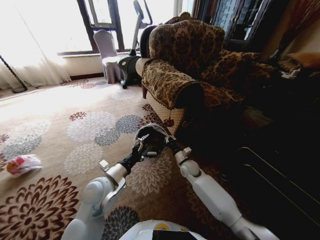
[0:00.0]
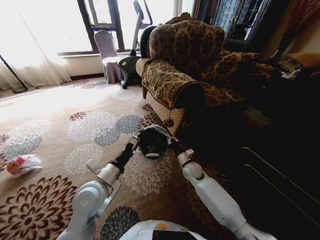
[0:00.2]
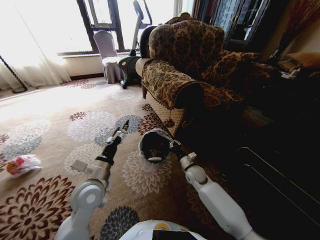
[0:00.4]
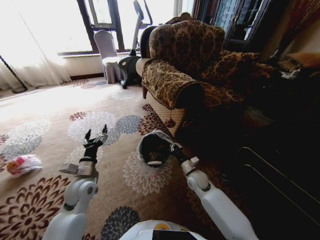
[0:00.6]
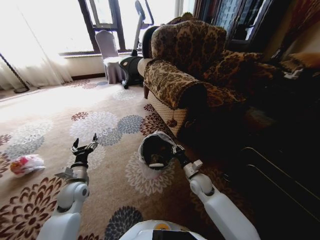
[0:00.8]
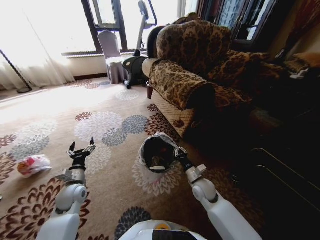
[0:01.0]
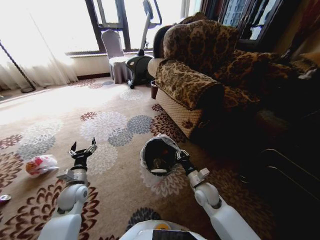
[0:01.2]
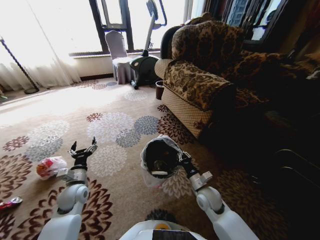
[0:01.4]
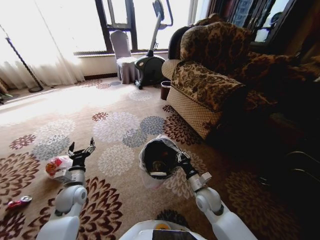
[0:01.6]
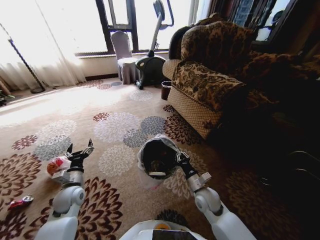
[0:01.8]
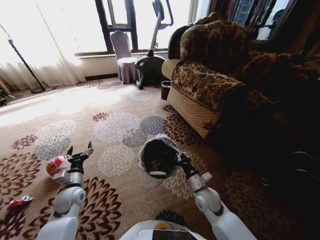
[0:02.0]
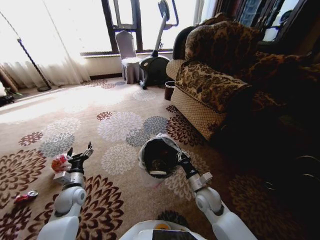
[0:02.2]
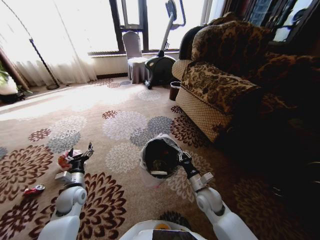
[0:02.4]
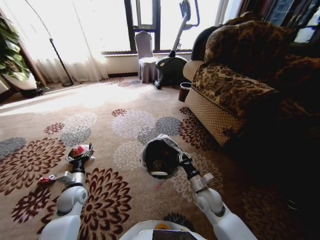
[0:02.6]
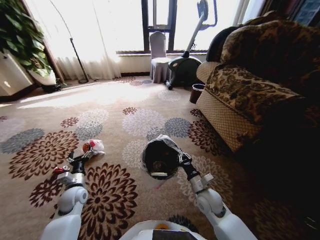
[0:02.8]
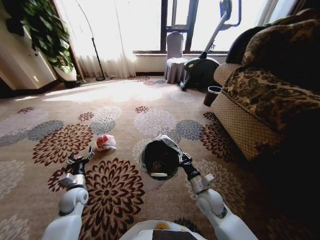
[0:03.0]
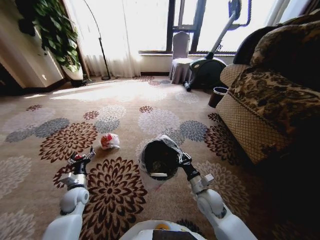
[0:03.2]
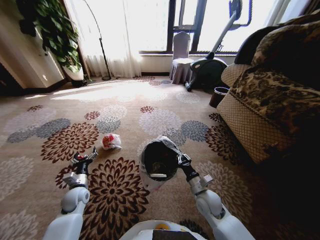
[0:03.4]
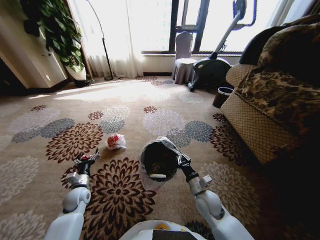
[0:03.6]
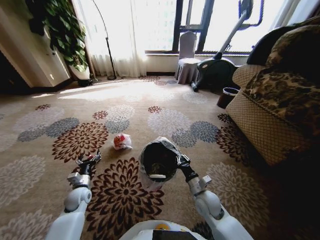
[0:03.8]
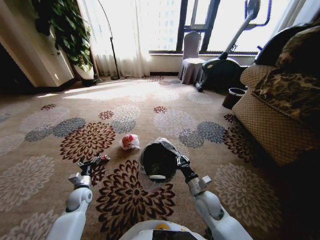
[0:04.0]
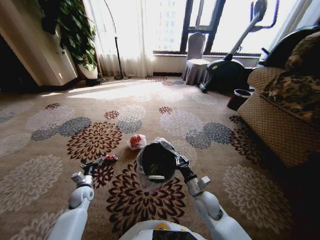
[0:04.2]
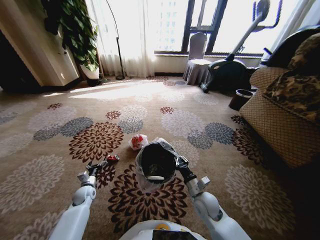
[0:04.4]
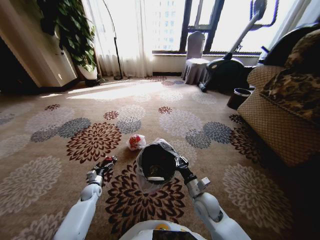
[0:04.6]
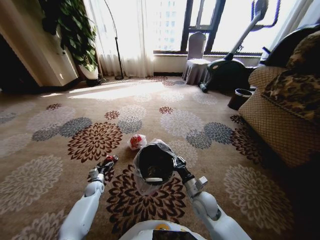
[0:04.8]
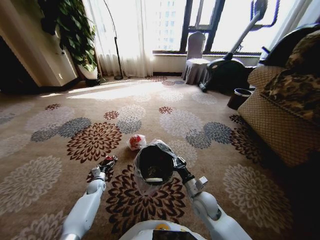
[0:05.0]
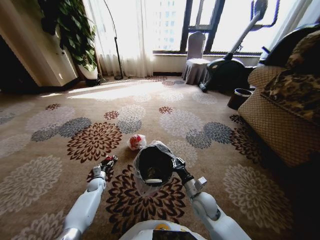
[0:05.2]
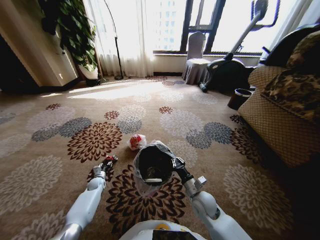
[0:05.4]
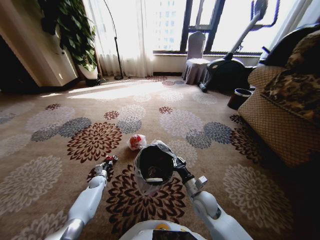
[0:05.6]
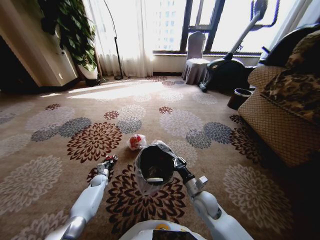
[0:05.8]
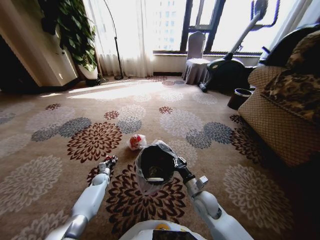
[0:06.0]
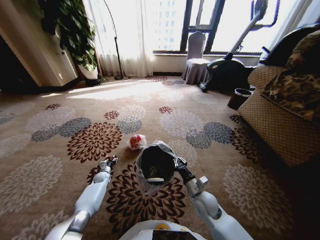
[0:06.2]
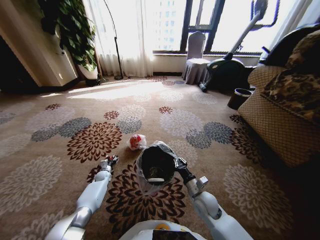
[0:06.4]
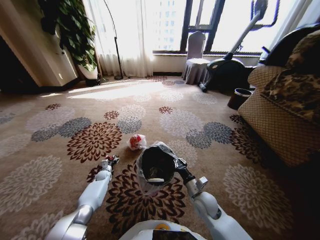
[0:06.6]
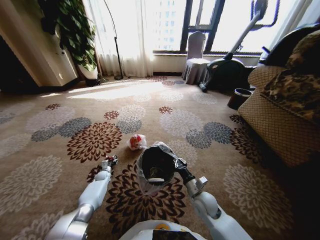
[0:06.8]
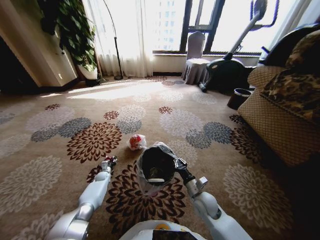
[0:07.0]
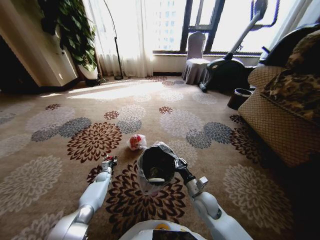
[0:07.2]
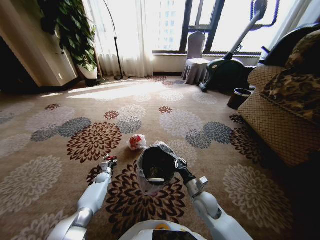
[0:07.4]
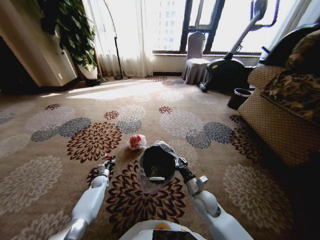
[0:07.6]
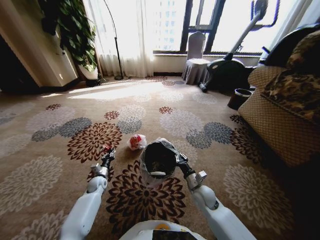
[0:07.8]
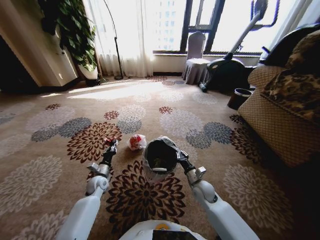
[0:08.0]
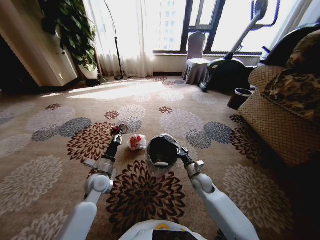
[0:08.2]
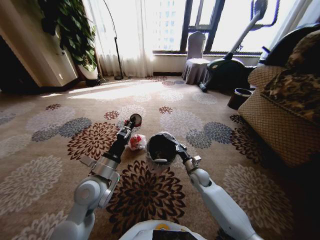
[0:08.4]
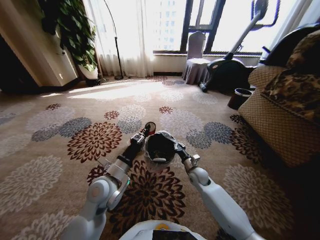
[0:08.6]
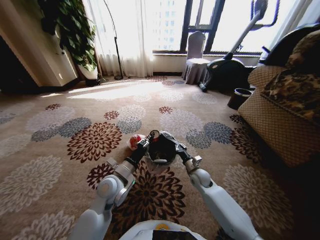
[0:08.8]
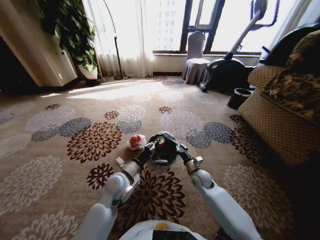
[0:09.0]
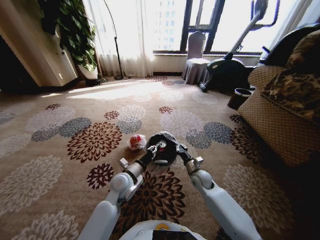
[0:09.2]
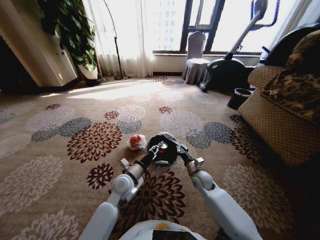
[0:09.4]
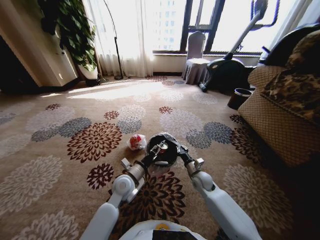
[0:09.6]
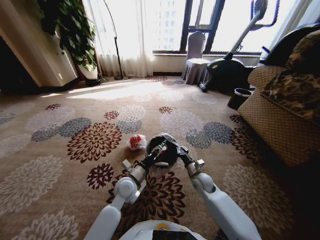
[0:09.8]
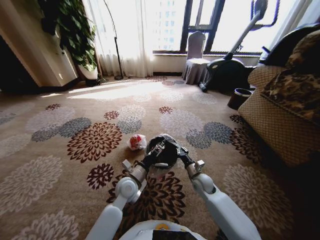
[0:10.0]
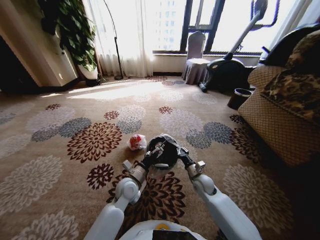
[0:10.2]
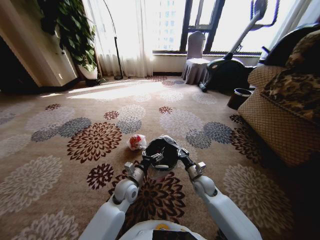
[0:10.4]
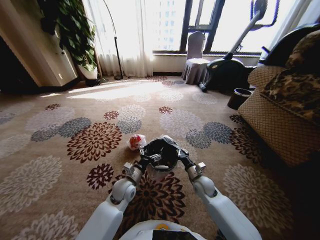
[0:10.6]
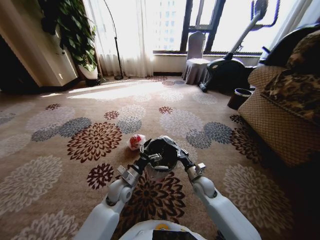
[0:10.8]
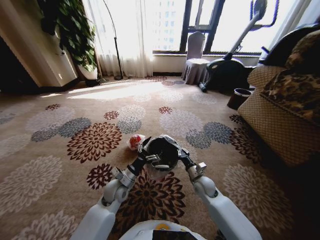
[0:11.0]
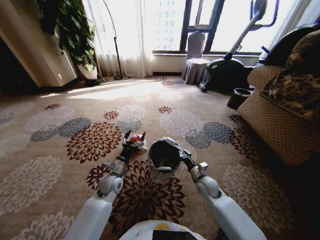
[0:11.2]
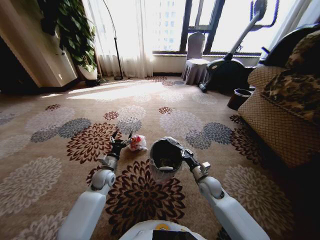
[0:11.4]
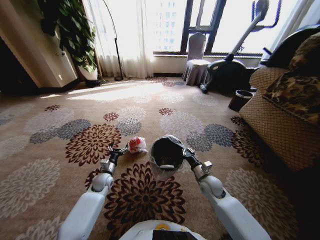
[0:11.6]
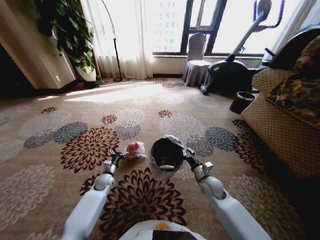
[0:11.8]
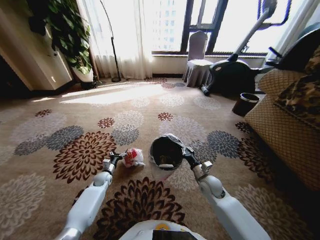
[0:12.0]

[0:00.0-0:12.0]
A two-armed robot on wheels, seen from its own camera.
Task of the whole recording: Pick up the trash from the ground and place it into the trash bin.
0:00.0 to 0:01.6: The right gripper is displaced backward by some 15 cm; the left gripper goes about 20 cm to the left and downward.
0:03.0 to 0:04.4: The left gripper goes roughly 10 cm downward.
0:04.4 to 0:06.0: The left gripper travels forward and downward by about 10 cm, and closes its fingers.
0:06.0 to 0:07.6: The left gripper opens and closes again.
0:07.6 to 0:09.0: The left gripper shifts roughly 35 cm upward and to the right. The right gripper travels forward by approximately 10 cm.
0:09.0 to 0:10.4: The left gripper heads downward, covering some 10 cm, and opens up.
0:10.4 to 0:12.0: The left gripper heads to the left, downward and forward, covering about 25 cm.

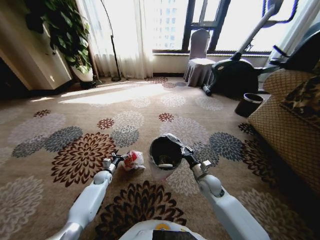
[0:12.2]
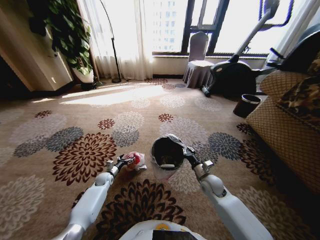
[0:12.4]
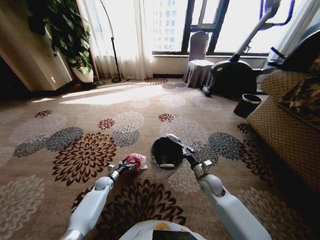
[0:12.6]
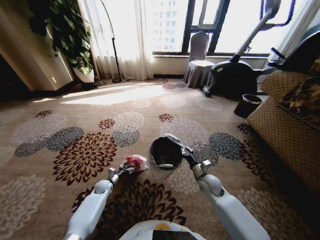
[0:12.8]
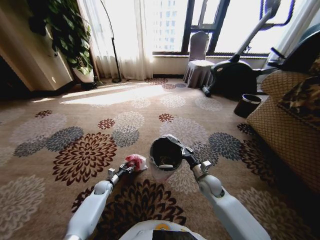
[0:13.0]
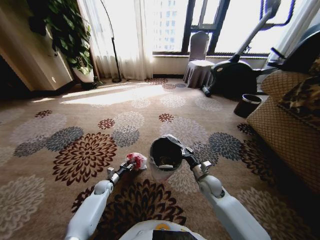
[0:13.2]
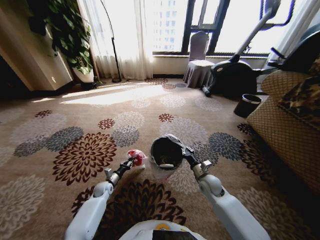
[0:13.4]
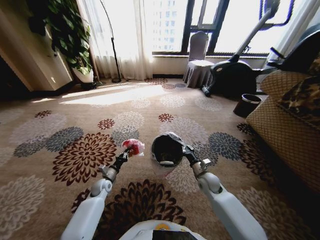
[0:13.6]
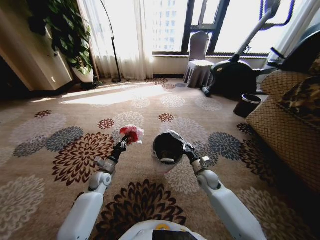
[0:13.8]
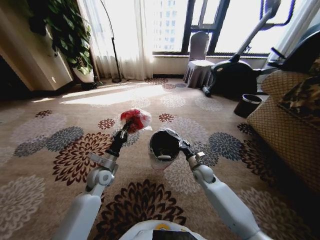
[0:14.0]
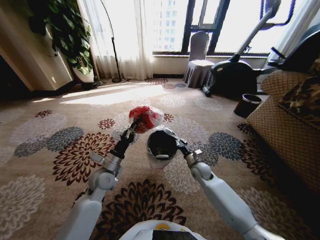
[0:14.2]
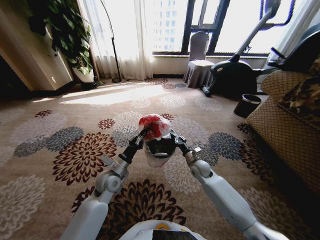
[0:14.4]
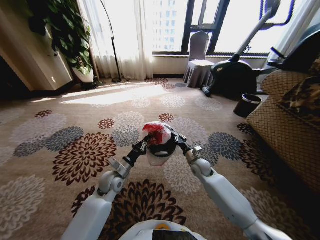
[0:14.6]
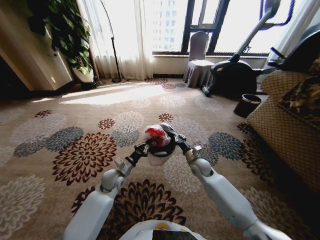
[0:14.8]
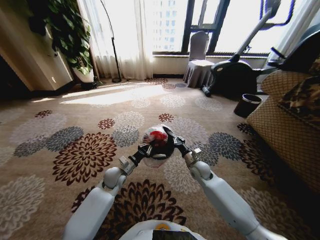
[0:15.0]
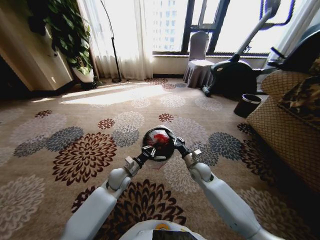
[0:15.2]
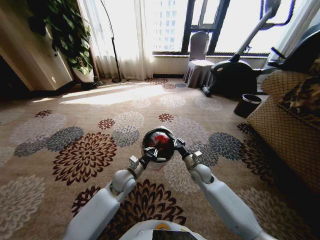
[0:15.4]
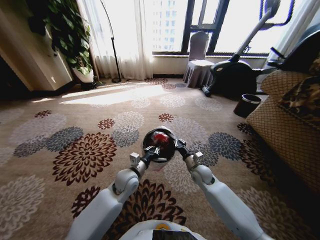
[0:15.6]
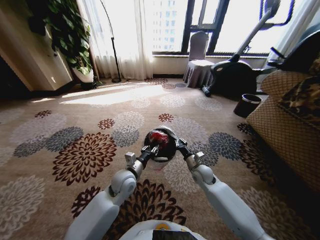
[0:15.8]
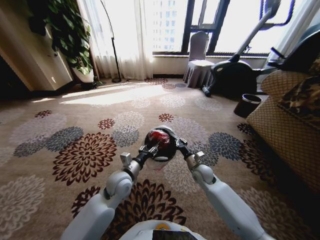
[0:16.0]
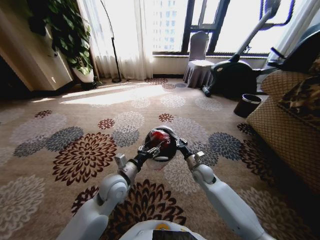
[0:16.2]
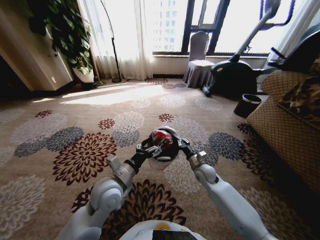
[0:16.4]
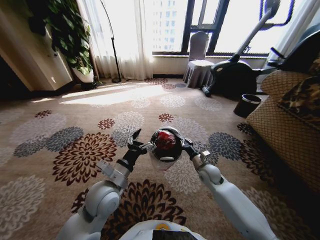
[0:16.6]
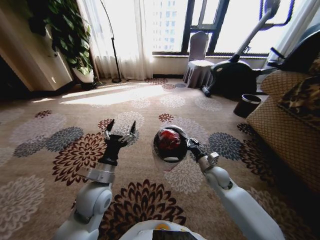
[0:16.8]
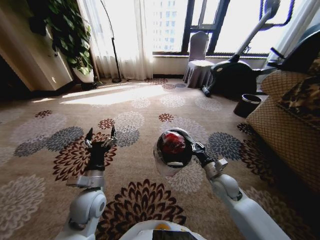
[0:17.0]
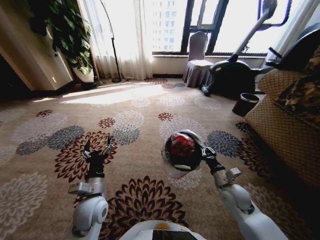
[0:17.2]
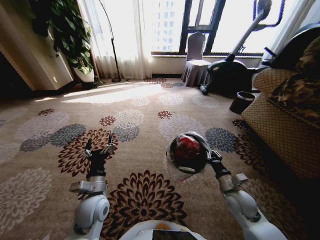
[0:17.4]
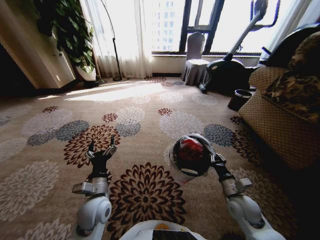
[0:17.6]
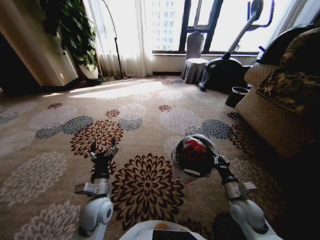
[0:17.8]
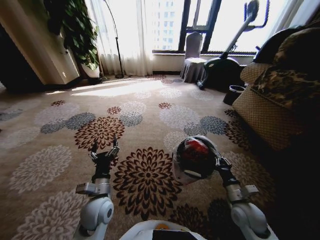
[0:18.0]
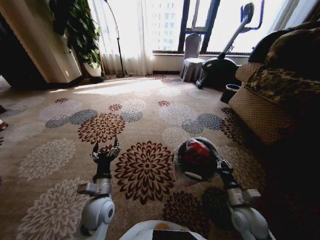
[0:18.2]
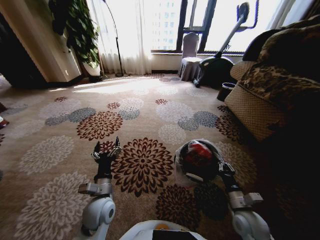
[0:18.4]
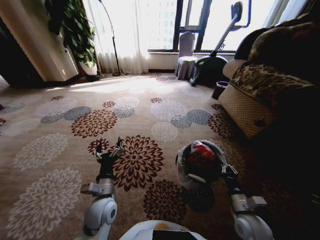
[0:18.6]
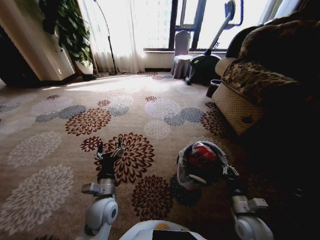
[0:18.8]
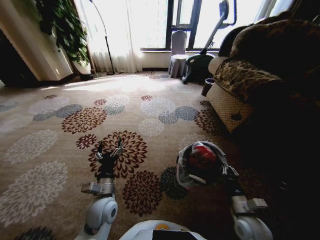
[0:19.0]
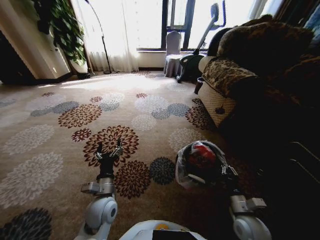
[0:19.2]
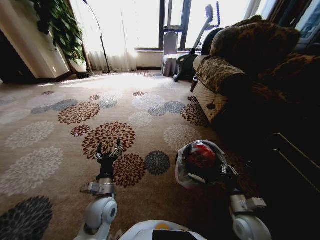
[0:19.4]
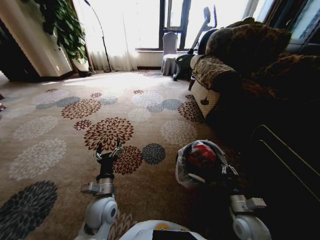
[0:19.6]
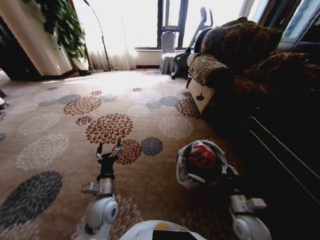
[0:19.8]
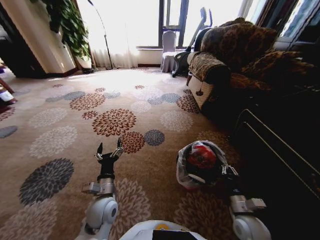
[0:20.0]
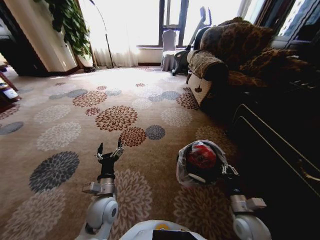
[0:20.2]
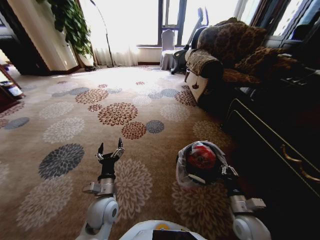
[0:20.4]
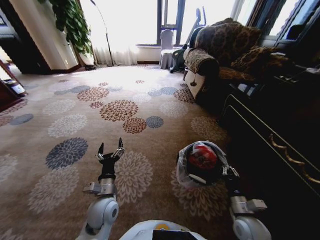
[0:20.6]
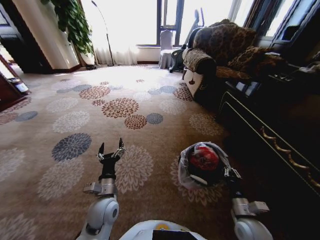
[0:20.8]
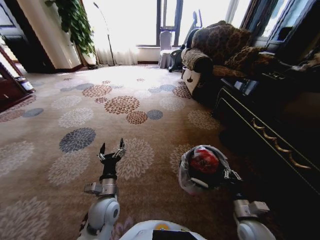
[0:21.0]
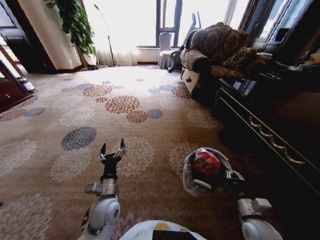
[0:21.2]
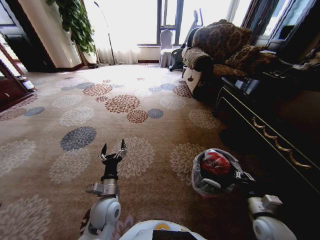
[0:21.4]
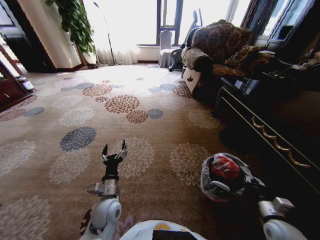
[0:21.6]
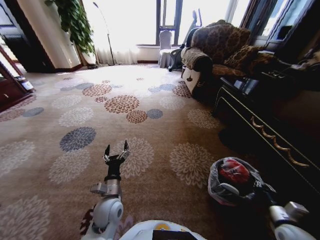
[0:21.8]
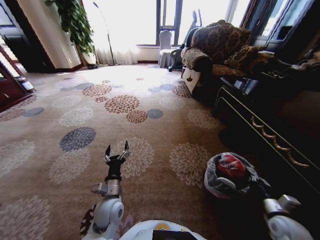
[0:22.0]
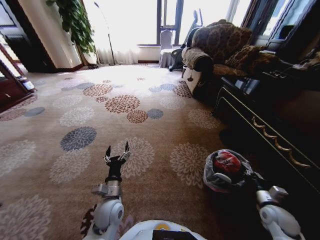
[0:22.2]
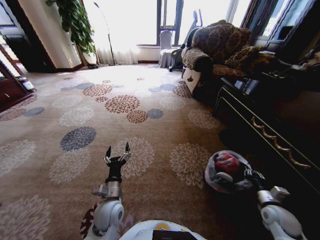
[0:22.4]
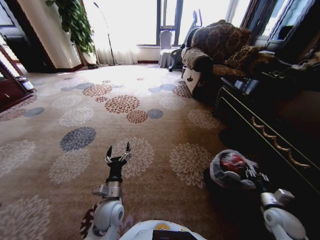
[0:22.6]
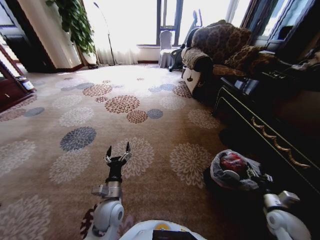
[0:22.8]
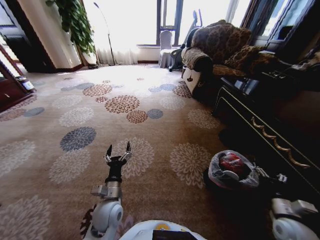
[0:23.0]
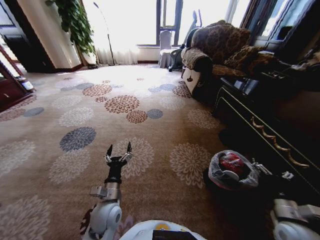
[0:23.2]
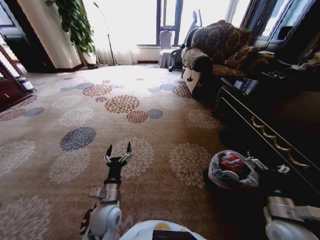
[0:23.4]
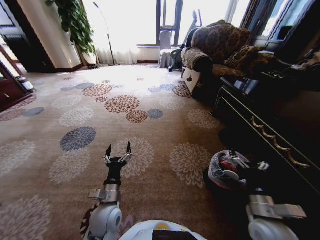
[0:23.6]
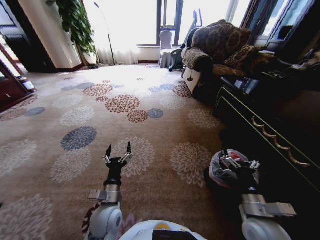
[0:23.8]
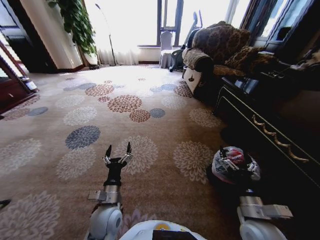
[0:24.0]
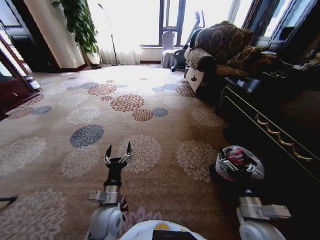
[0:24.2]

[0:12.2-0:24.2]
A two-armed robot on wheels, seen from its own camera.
Task of the whole recording: Pick up the trash from the ground and place it into the trash bin.
0:12.2 to 0:13.8: The left gripper goes about 10 cm upward and backward, and closes its fingers.
0:13.8 to 0:15.2: The left gripper travels to the right and upward by about 15 cm; the right gripper changes place by approximately 5 cm.
0:15.2 to 0:16.6: The left gripper shifts approximately 15 cm upward and backward, and opens its fingers.
0:16.6 to 0:18.2: The right gripper heads backward and to the right, covering approximately 20 cm, while the left gripper shifts approximately 10 cm downward.
0:21.2 to 0:22.6: The right gripper is displaced to the right by roughly 15 cm.
0:22.6 to 0:24.2: The right gripper moves to the left and upward, roughly 20 cm, and opens its fingers.
